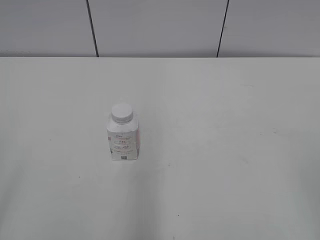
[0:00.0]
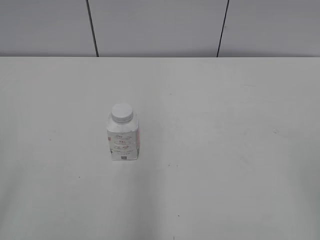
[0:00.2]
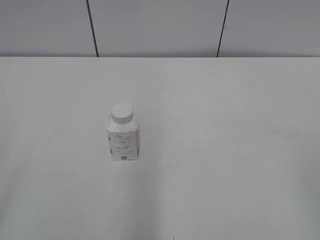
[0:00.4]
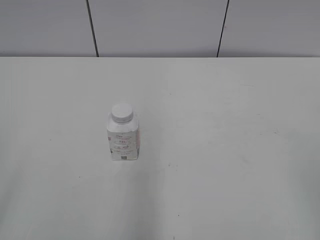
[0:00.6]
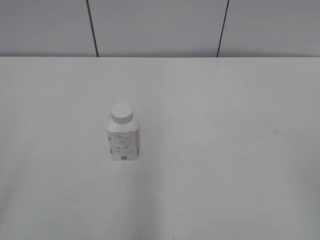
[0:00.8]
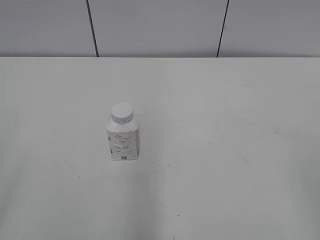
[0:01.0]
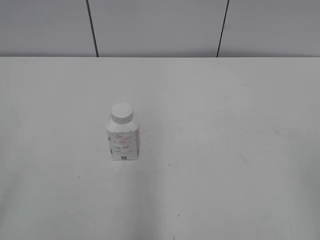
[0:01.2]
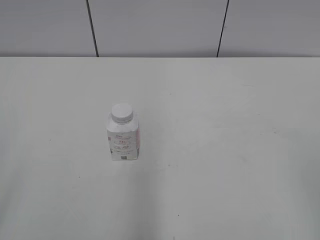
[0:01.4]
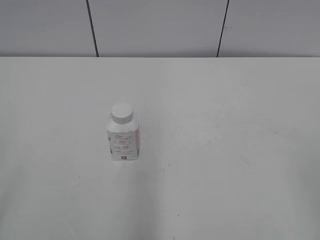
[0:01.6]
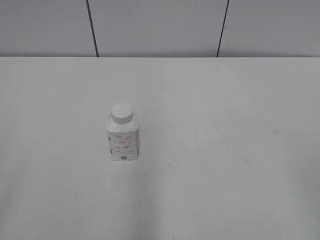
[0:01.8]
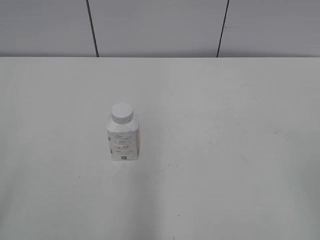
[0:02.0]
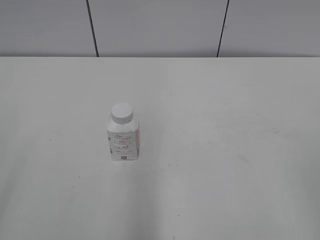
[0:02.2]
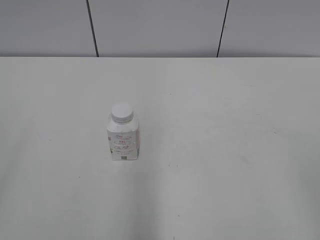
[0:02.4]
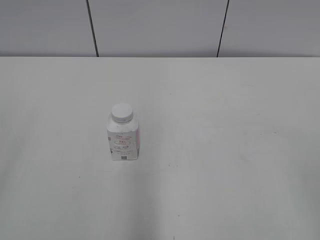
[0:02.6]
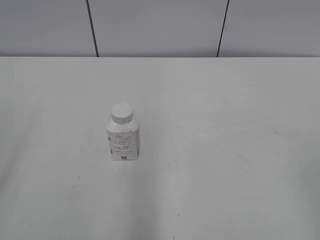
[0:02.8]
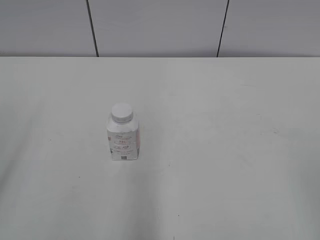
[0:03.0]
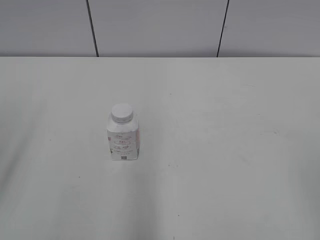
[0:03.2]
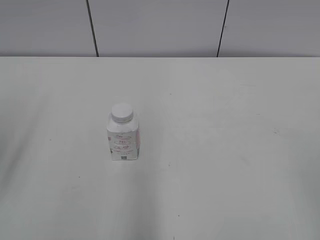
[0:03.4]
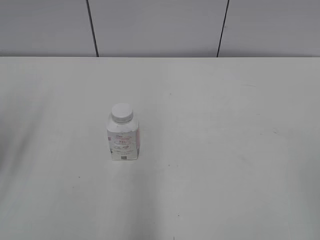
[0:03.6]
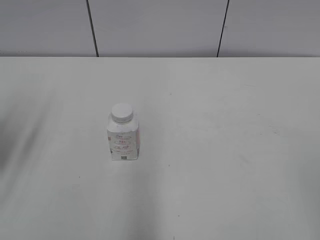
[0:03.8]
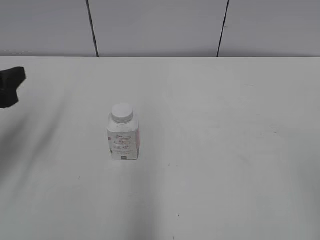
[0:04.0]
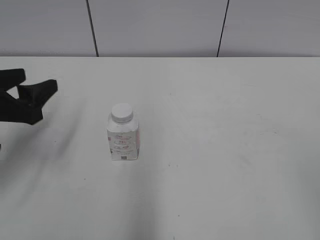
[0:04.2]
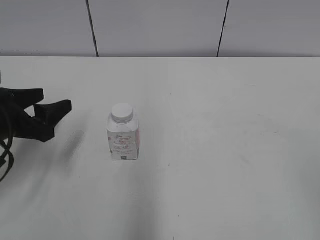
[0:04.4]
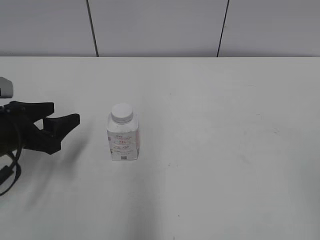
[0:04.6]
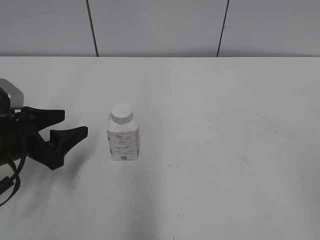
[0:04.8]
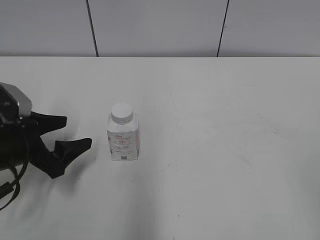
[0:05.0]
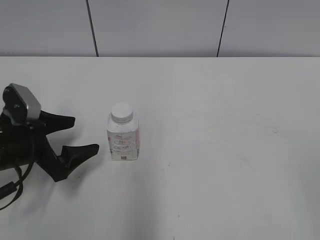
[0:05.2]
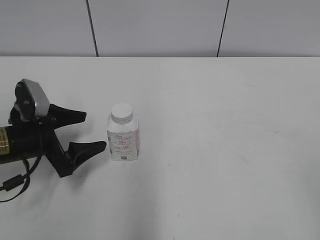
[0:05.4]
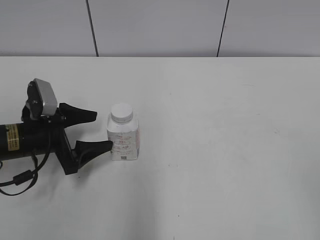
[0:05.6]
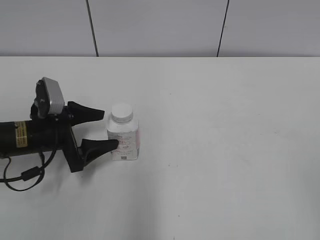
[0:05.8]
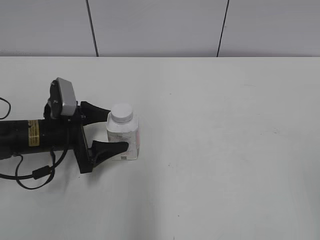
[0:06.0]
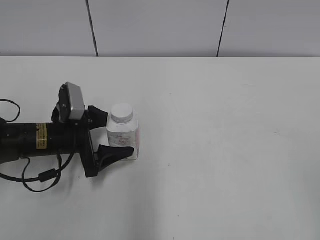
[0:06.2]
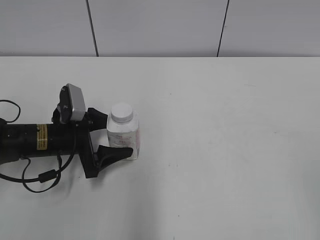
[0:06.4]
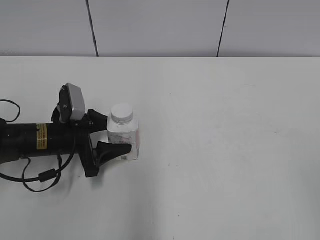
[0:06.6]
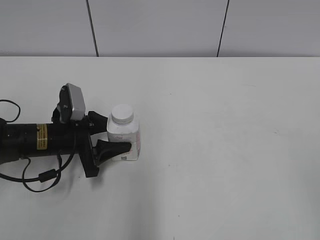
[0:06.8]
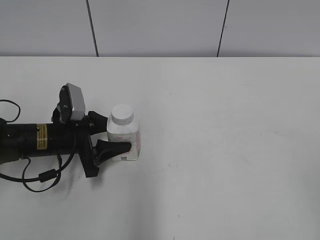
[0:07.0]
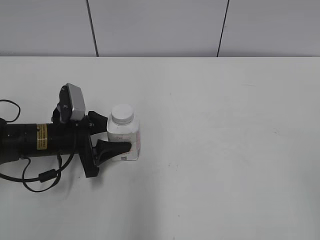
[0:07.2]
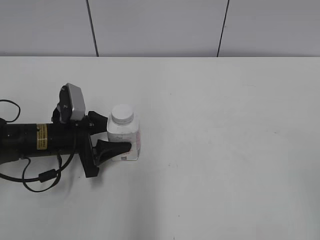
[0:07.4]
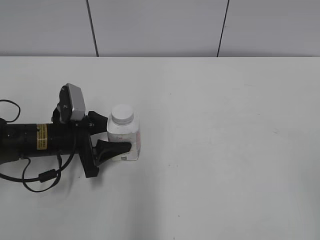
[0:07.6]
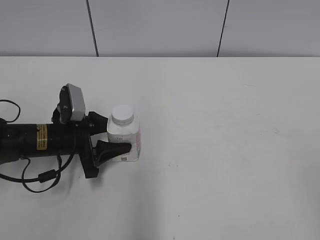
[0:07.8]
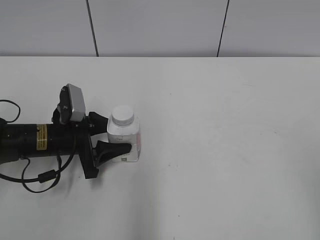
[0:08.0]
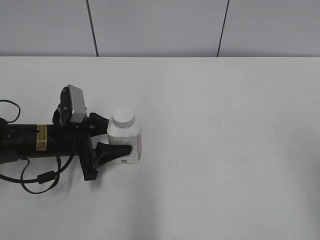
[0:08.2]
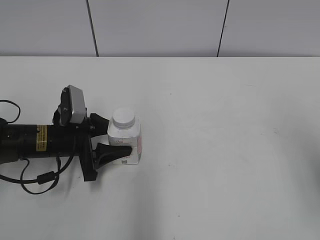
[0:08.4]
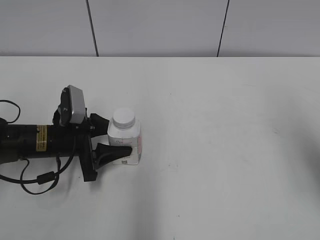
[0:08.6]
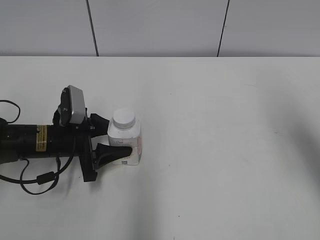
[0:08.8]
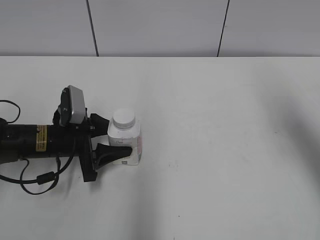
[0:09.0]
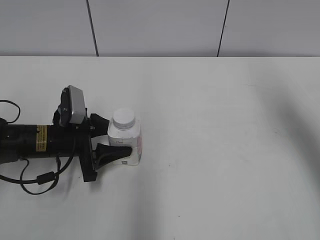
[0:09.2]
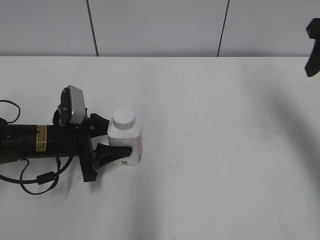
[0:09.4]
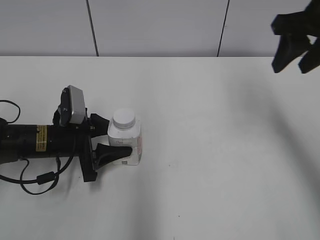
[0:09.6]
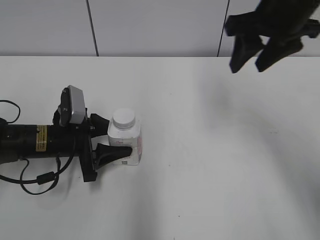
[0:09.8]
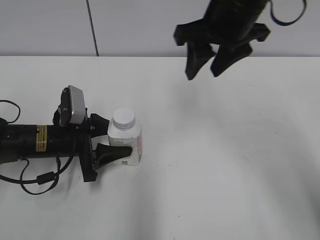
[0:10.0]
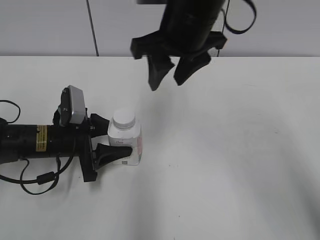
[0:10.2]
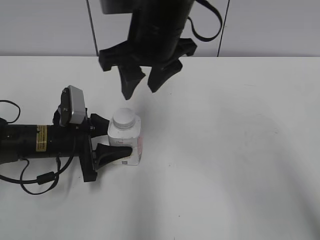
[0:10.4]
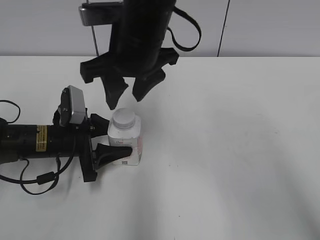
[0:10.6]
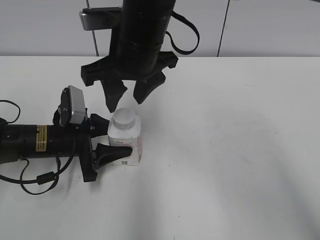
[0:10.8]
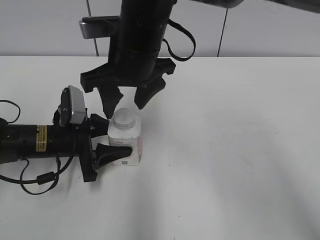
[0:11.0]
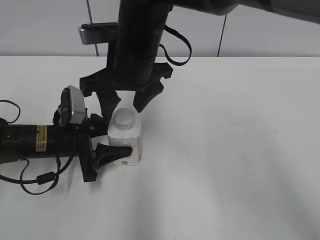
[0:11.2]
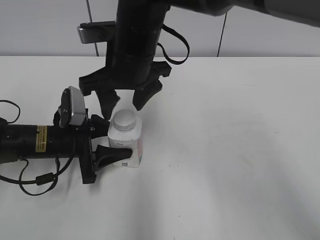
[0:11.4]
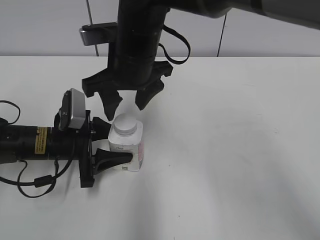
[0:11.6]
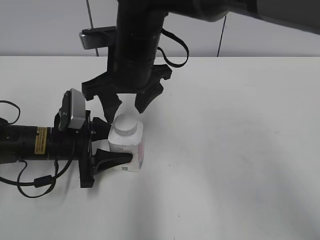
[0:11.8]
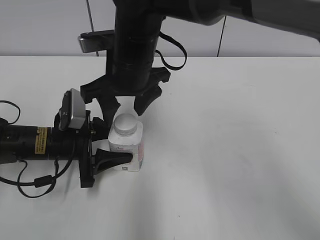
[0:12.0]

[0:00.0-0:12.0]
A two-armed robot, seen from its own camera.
Step, 0:00.0 to 0:11.6: Grasp the bottle and move it to the center of the table with the left gripper.
0:03.0 to 0:04.4: The left gripper heads forward and downward, covering some 20 cm.
0:04.4 to 0:06.0: The left gripper is displaced downward, to the right and forward by approximately 10 cm, and opens its fingers.
0:06.0 to 0:07.6: The left gripper closes.
0:07.6 to 0:09.0: The right gripper goes approximately 25 cm forward.
0:09.0 to 0:10.4: The right gripper moves to the left, about 30 cm, and closes.
0:10.4 to 0:12.0: The right gripper moves downward, about 5 cm, and opens.

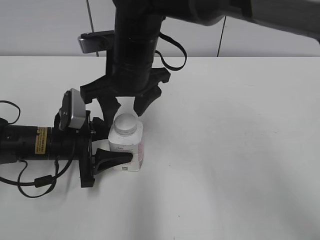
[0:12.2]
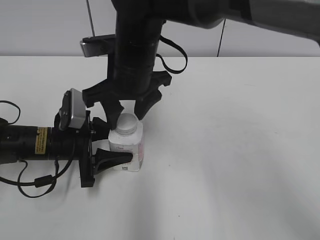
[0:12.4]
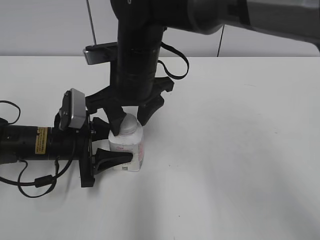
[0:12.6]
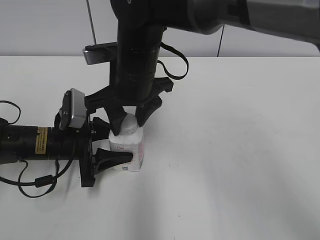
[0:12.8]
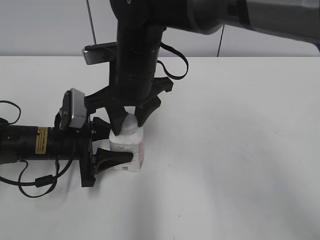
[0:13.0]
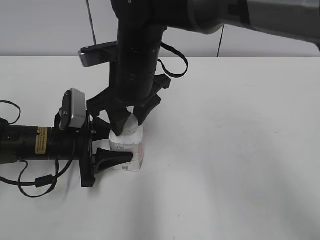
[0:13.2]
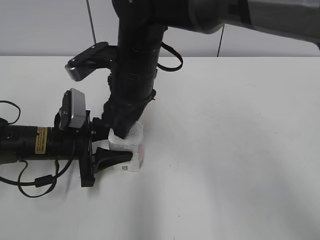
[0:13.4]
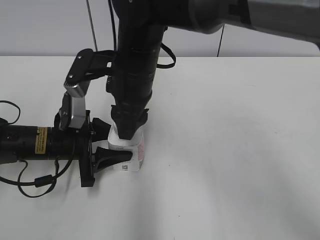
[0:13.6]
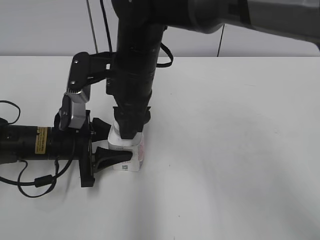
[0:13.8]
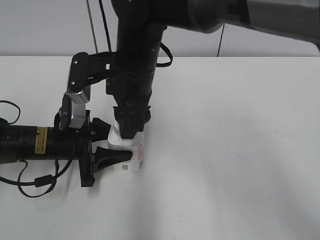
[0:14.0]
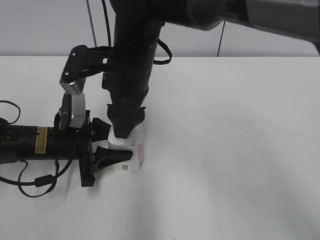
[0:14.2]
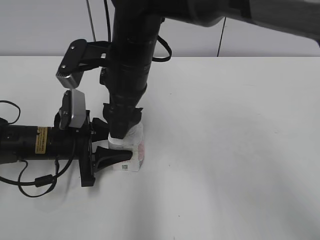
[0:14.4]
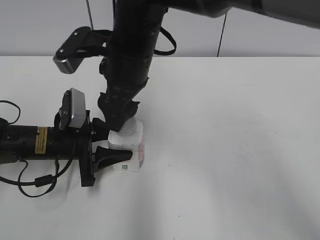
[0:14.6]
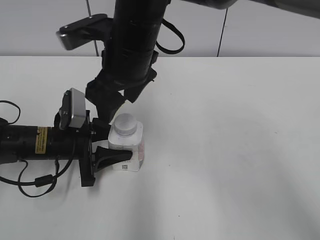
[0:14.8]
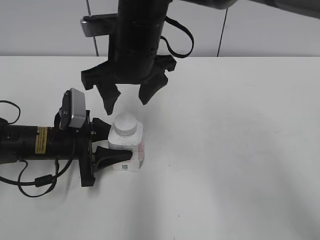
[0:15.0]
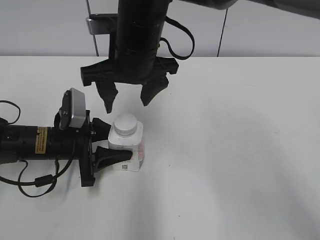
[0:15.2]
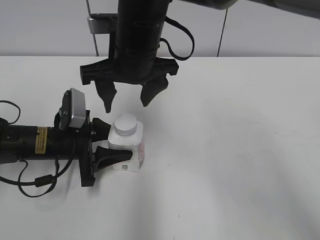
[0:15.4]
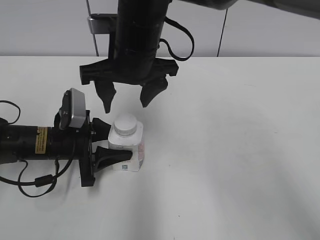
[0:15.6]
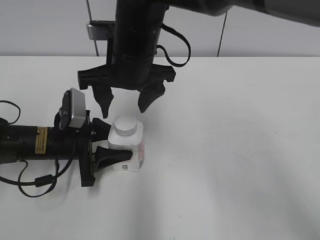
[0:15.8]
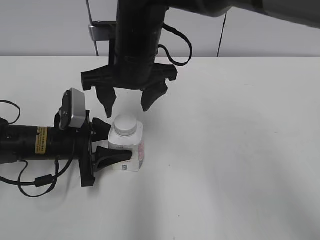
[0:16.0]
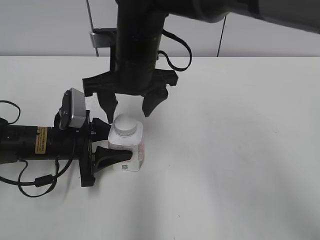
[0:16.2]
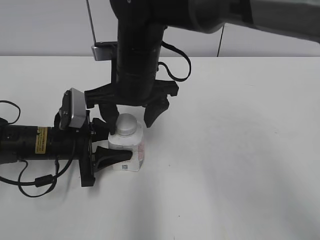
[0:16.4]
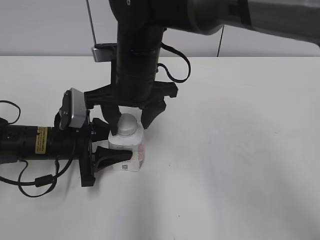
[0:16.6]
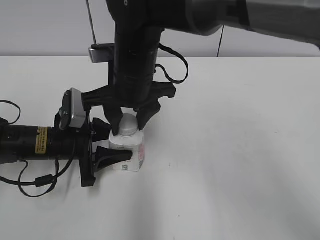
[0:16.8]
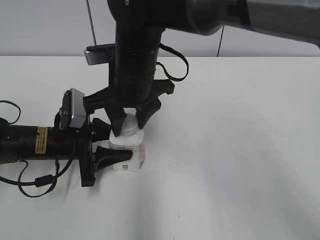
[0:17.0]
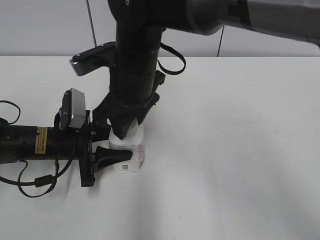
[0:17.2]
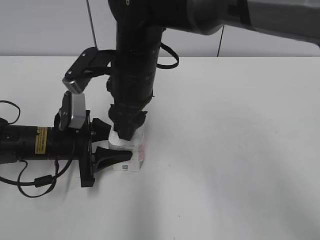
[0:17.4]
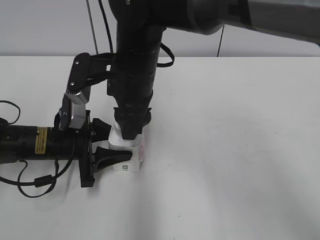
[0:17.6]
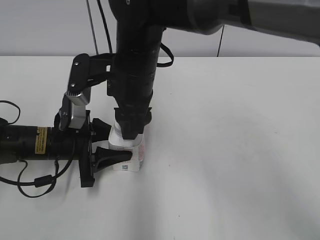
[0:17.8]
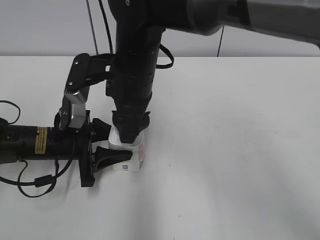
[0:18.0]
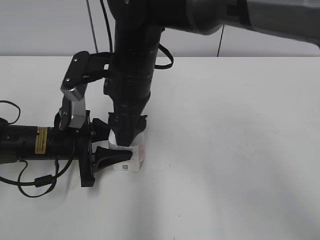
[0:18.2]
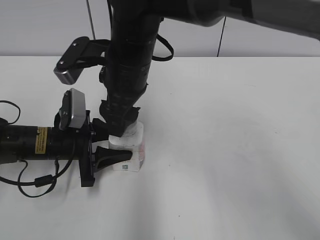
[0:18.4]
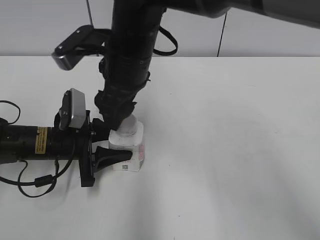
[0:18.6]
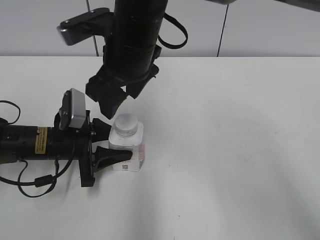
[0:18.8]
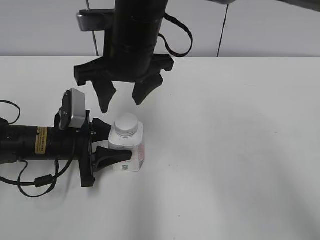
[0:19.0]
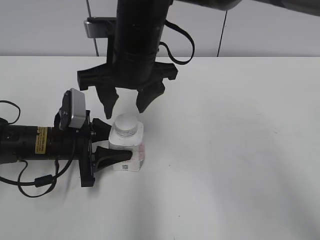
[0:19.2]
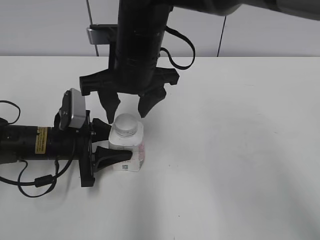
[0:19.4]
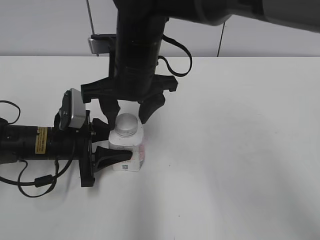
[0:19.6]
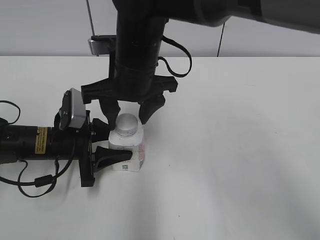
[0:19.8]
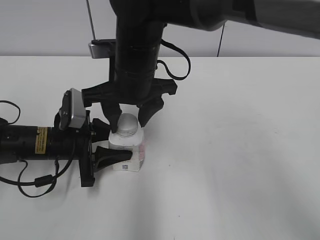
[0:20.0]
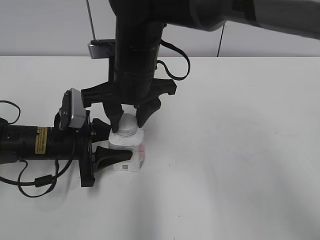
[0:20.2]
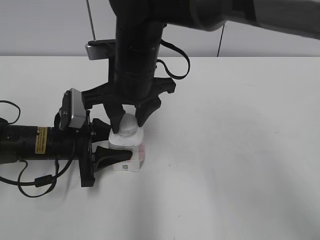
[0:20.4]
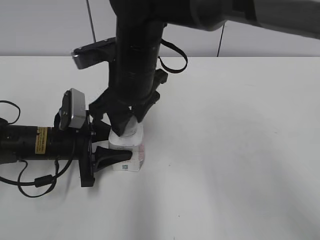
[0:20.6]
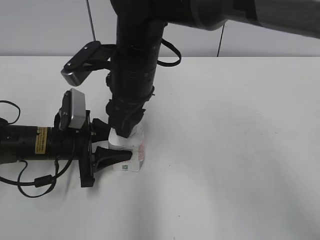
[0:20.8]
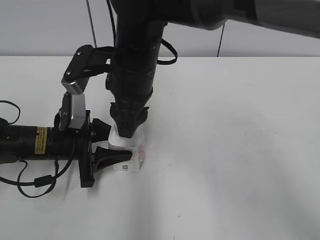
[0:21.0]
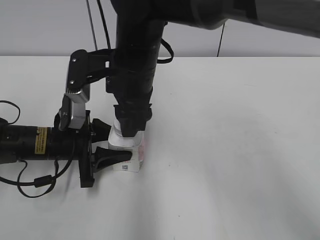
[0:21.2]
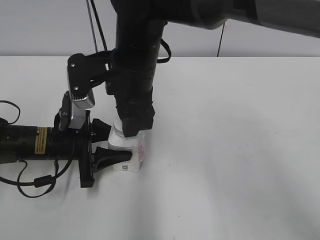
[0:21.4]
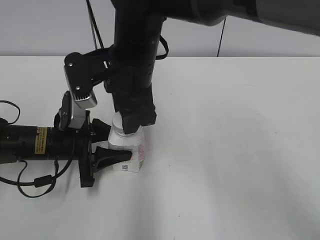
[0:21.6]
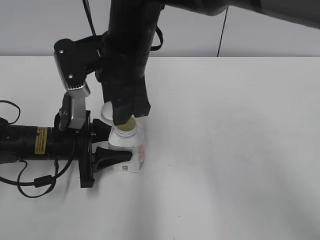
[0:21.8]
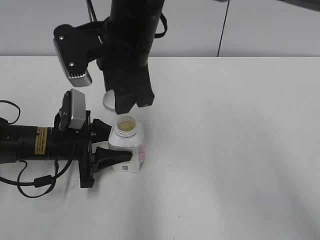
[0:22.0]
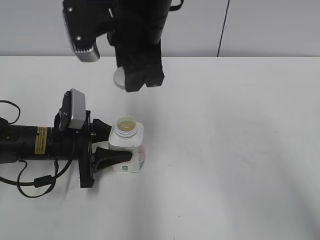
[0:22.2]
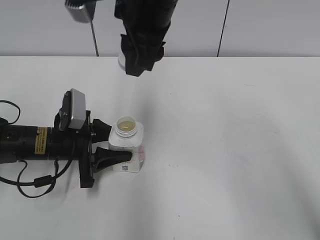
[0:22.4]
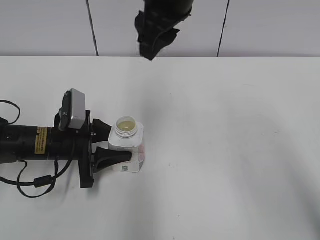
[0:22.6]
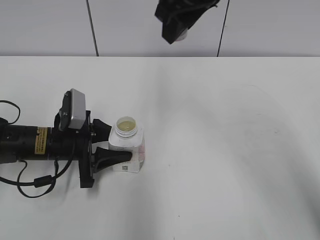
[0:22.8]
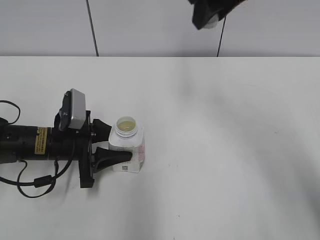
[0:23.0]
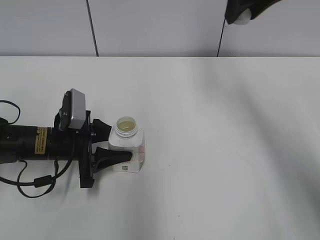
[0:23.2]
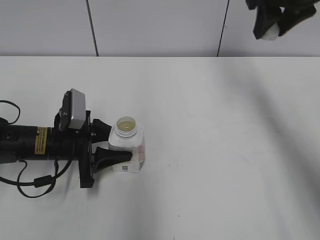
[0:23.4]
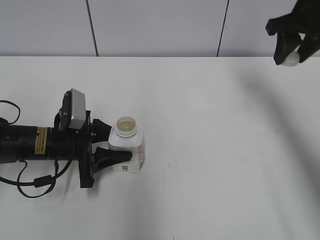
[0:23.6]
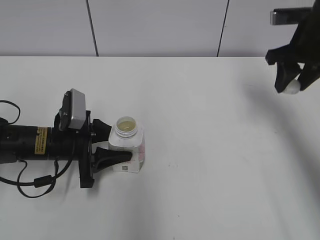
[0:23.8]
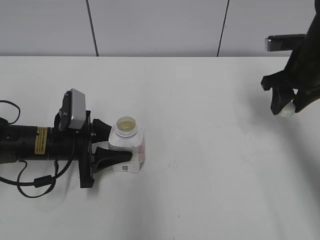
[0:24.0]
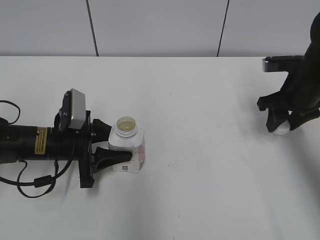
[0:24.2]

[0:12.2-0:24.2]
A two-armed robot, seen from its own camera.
Step, 0:12.2 to 0:21.8: Unscrew the bottle cap with the right gripper while holding the bottle with the left gripper.
0:12.2 to 0:13.8: The right gripper closes its fingers.
0:13.8 to 0:15.2: The right gripper opens up.
0:15.2 to 0:16.6: The grippers move only a little.
0:16.6 to 0:18.2: The right gripper opens up.
0:18.2 to 0:19.8: The right gripper closes up.
0:19.8 to 0:21.2: The right gripper closes.
0:21.2 to 0:22.6: The right gripper heads upward and to the right, covering roughly 10 cm.
0:22.6 to 0:24.2: The right gripper is displaced to the right and downward by approximately 30 cm.
